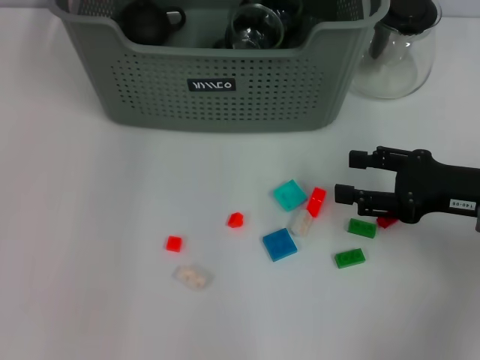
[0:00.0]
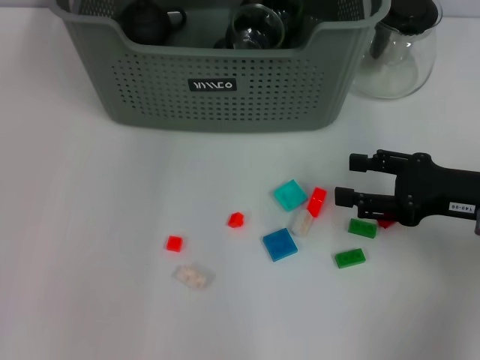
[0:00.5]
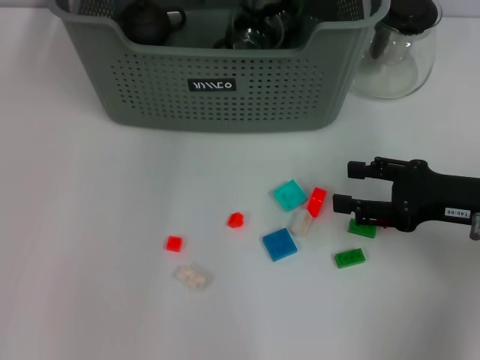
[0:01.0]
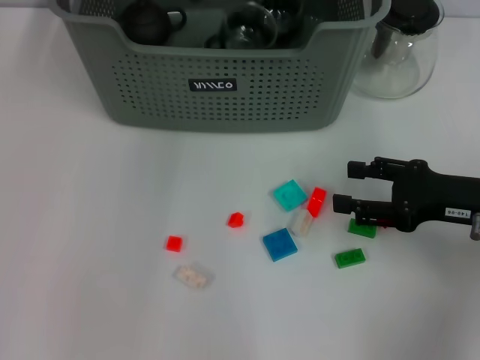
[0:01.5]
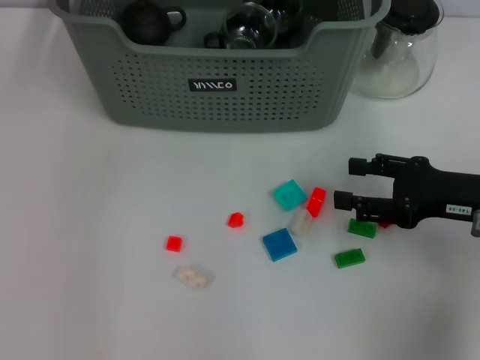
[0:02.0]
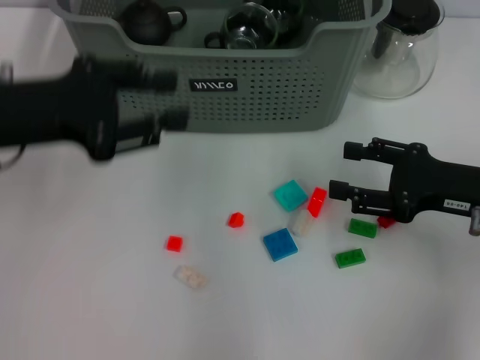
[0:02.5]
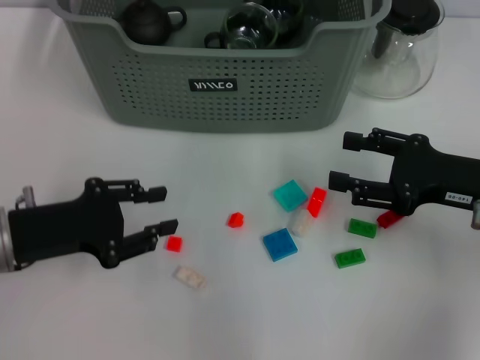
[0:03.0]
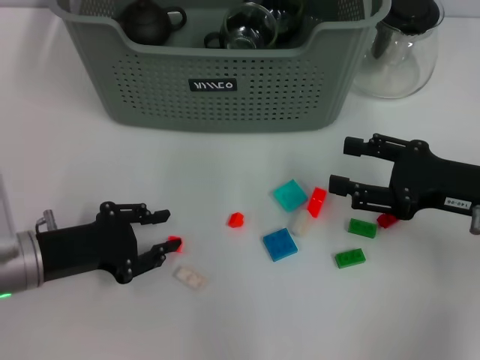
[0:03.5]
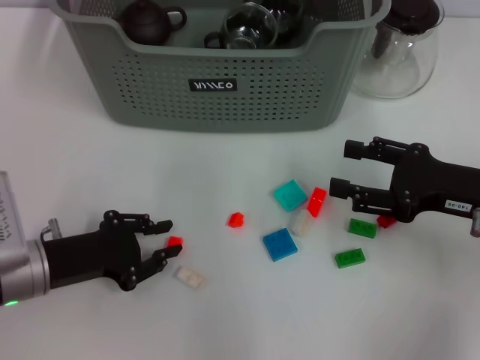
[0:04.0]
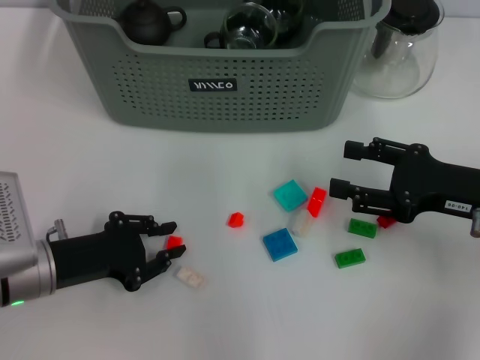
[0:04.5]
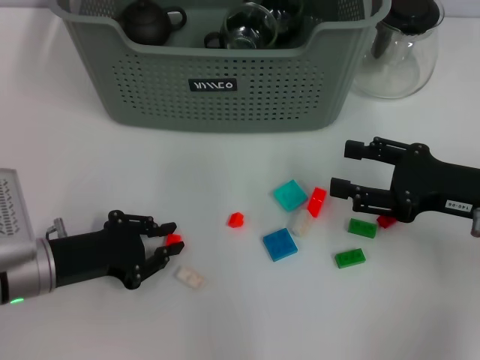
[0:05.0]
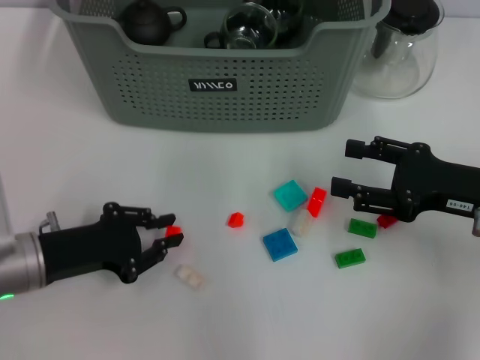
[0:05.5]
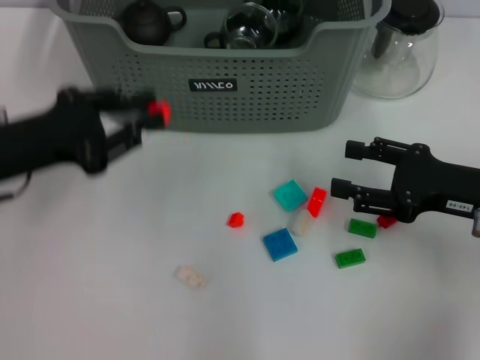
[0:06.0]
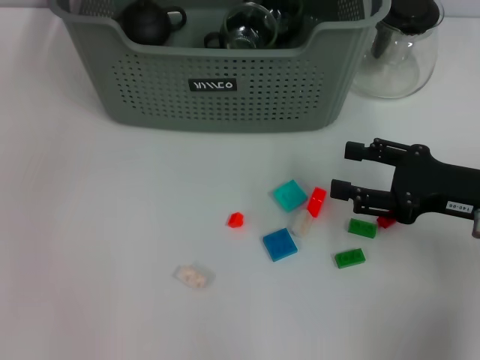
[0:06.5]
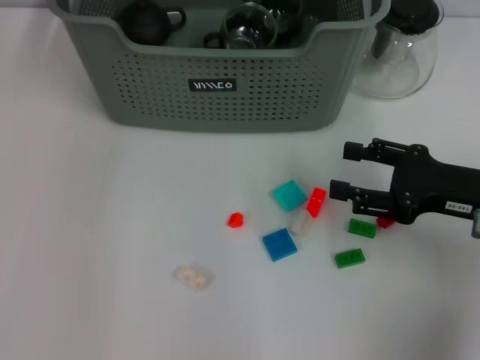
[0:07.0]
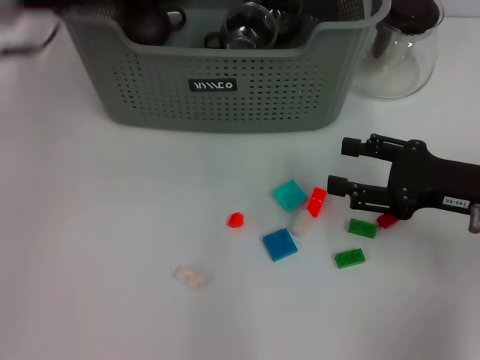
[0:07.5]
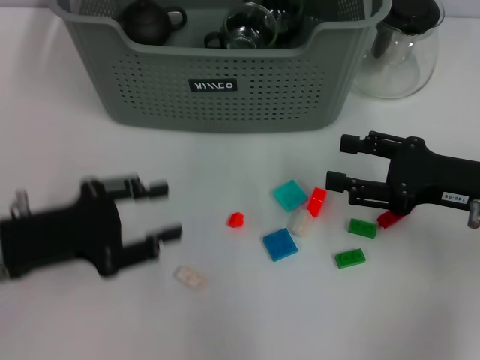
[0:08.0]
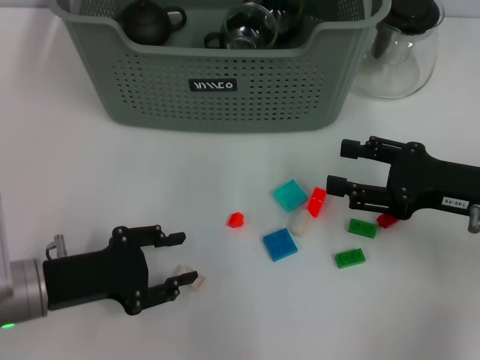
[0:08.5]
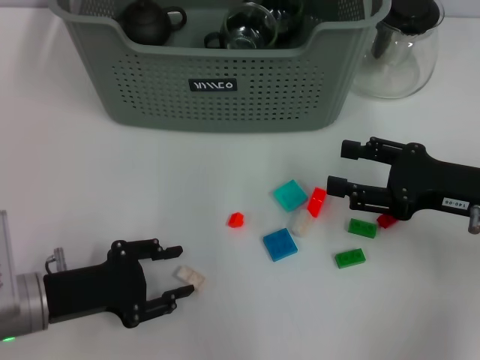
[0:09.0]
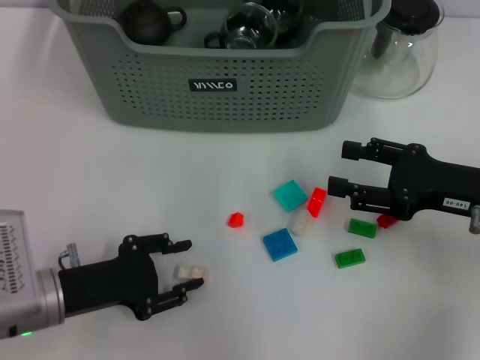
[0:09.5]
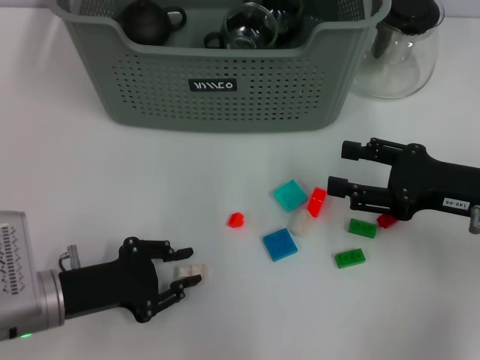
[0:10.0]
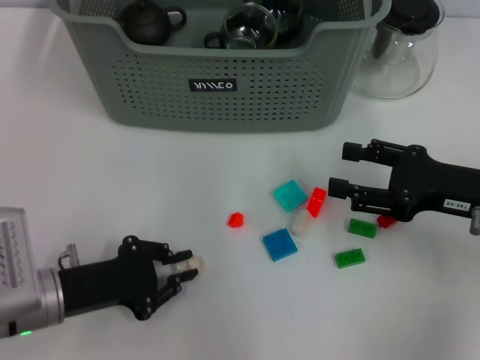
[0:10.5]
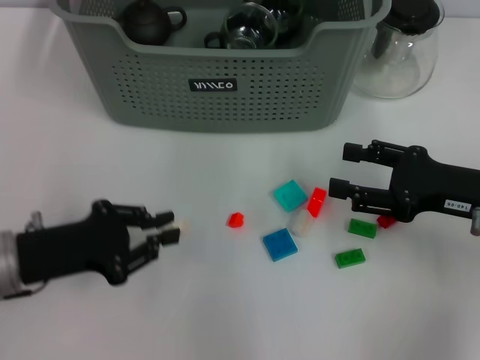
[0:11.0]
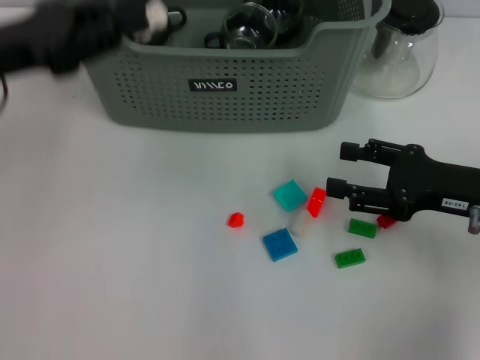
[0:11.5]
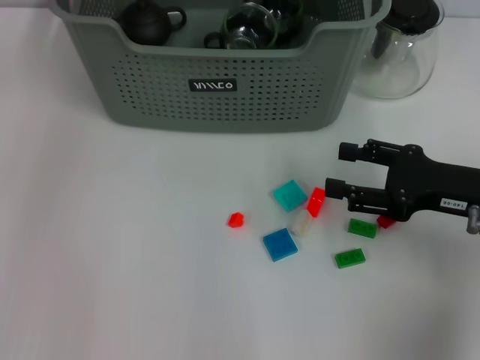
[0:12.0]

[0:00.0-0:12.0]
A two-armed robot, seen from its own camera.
Task of the whole recording: pick up the teacup on the table and place it into the storage bin, pick up the block on the table and place it into the storage bin.
Step, 0:00.0 to 0:01.5: Place the cup in the storage box with left gripper.
Step, 0:02.0 to 0:04.5: Grasp the orange block with left gripper.
Step, 0:05.0 to 0:07.0: Place the orange block in the storage box with left gripper.
Step, 0:07.5 to 0:10.5: Grasp the white block with left gripper.
0:02.0 to 0:04.0: The left gripper moves downward and backward, roughly 35 cm.
0:04.0 to 0:06.0: The left gripper shifts about 10 cm upward.
0:06.0 to 0:08.0: The left gripper travels forward and back again, about 15 cm each way, and opens up.
0:08.0 to 0:10.0: The left gripper shifts roughly 5 cm downward.
0:10.0 to 0:12.0: The left gripper travels upward and forward by roughly 35 cm.

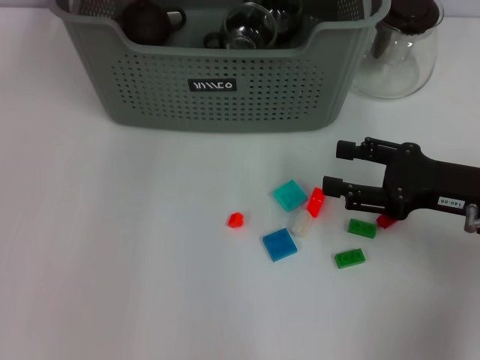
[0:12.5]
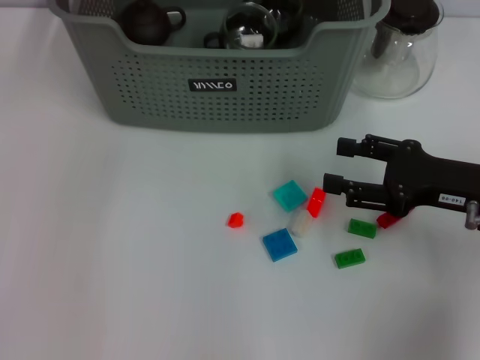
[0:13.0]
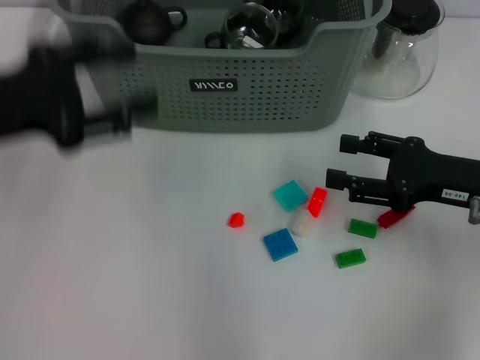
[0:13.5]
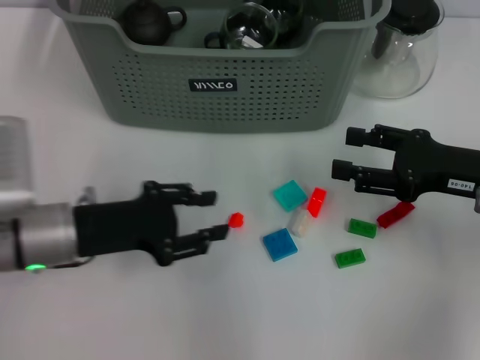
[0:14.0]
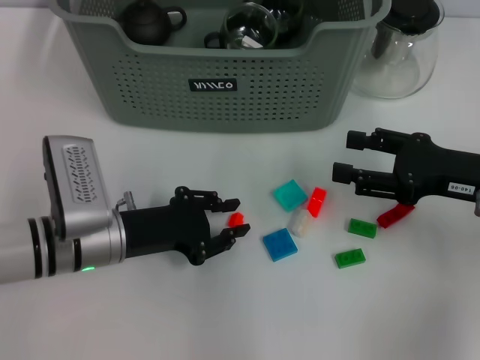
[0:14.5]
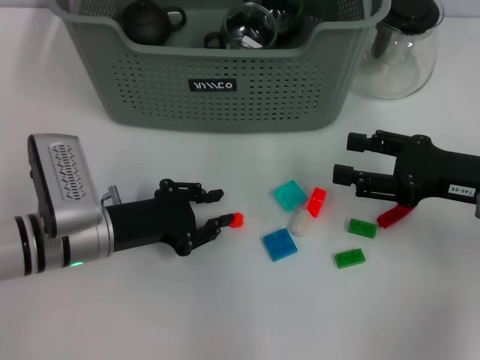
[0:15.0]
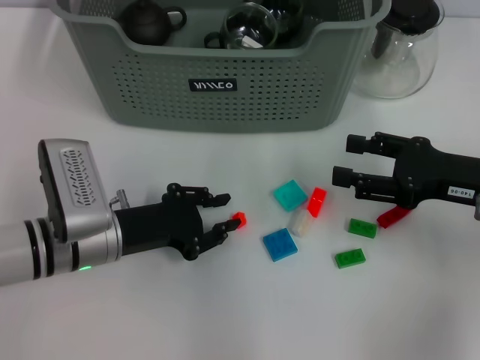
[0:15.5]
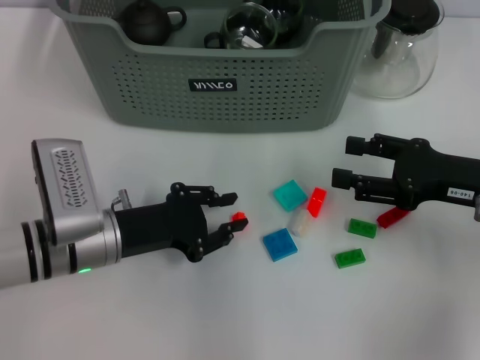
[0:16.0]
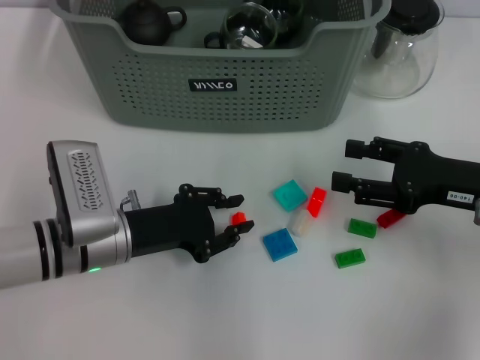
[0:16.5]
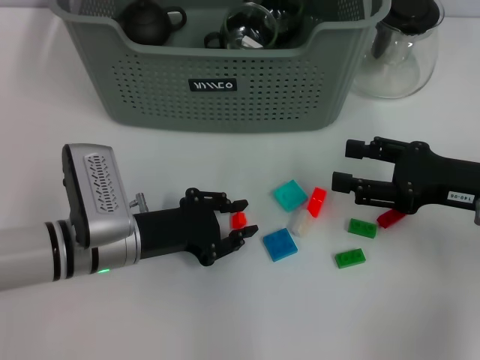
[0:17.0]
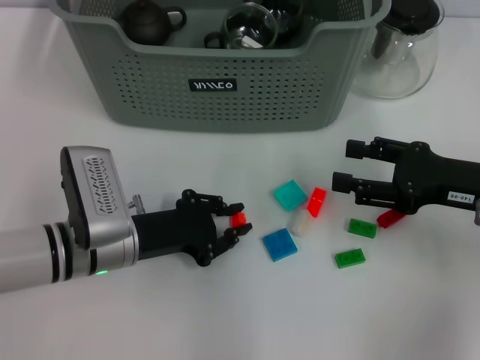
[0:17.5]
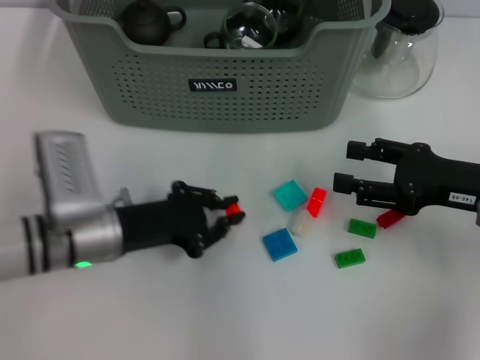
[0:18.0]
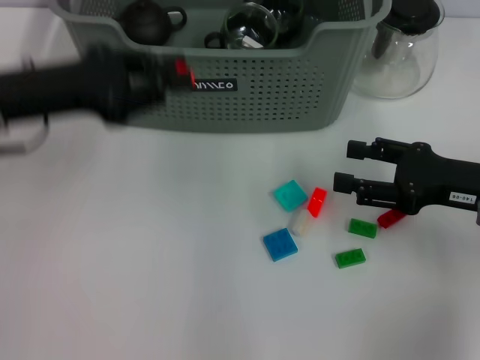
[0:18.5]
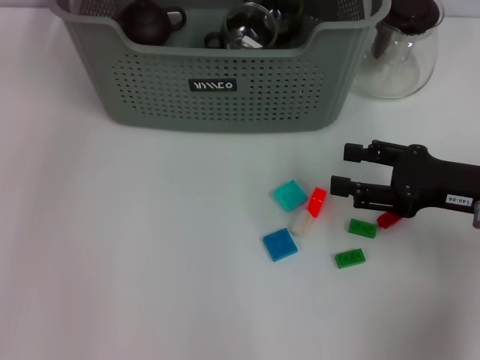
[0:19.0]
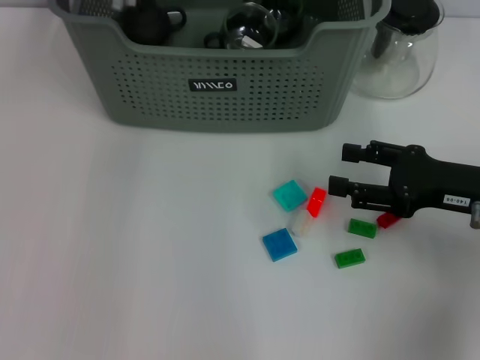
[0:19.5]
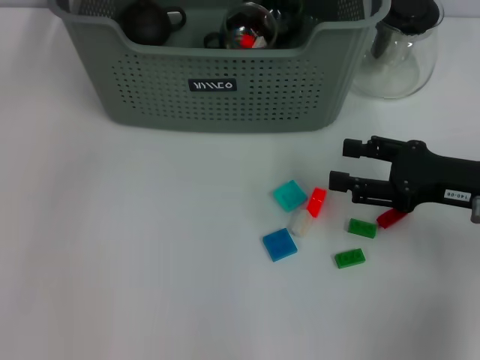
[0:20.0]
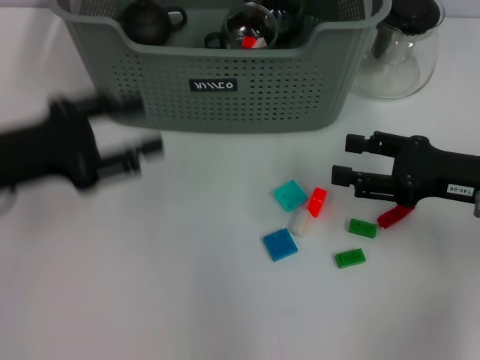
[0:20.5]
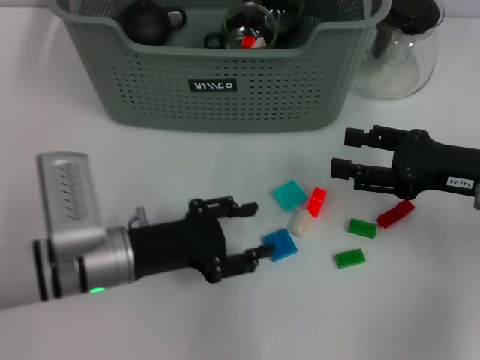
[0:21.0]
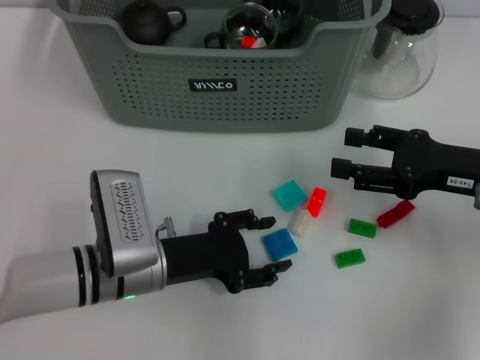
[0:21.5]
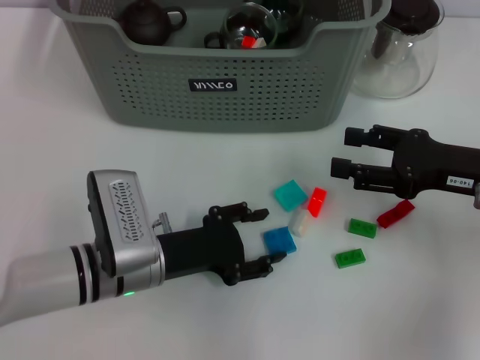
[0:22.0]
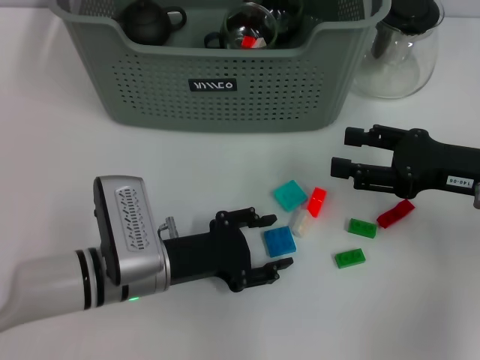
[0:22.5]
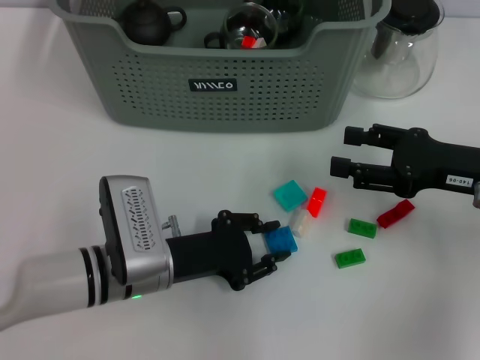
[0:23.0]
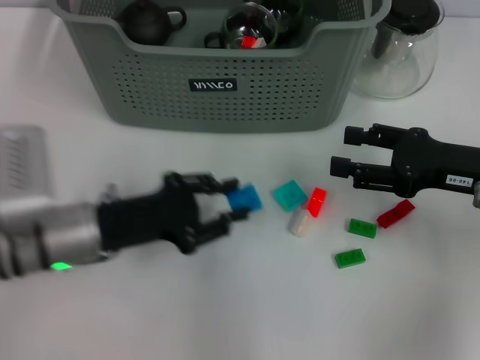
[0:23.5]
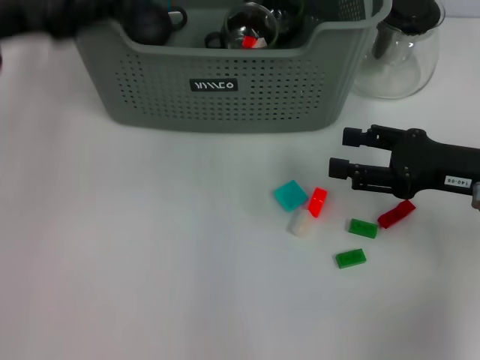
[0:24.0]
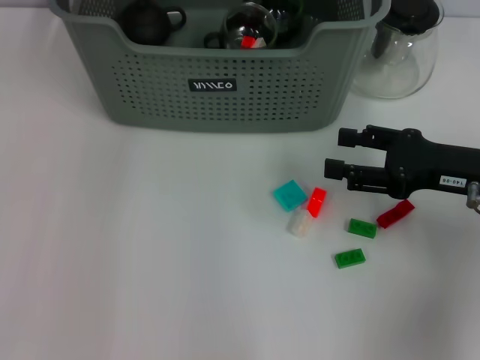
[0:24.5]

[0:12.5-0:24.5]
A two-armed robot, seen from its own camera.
Task of the whole recording: pick up the teacup on the table and place it into the storage bin, pick up the block on the table and place it into the storage bin.
Step, 0:13.5 to 0:17.5: Grasp the orange block with left gripper.
Step, 0:18.0 to 0:20.0: Place the orange block in the storage box with left gripper.
Step, 0:20.5 to 0:23.0: Grasp the dark blue block with left gripper.
0:12.5 to 0:14.5: The left gripper moves downward and backward, roughly 30 cm, and opens, then closes once more.
0:14.5 to 0:16.5: The grippers make only small movements.
0:16.5 to 0:18.5: The left gripper is displaced upward and to the left by some 15 cm.
0:18.5 to 0:20.5: The left gripper moves about 15 cm forward and comes back, and opens its fingers.
0:20.5 to 0:22.5: The left gripper is displaced to the right and downward by approximately 20 cm.
0:22.5 to 0:24.5: The left gripper moves upward and forward, some 35 cm.

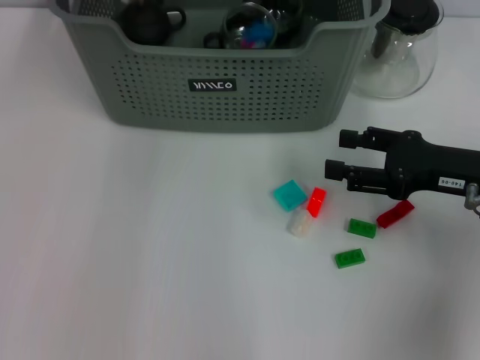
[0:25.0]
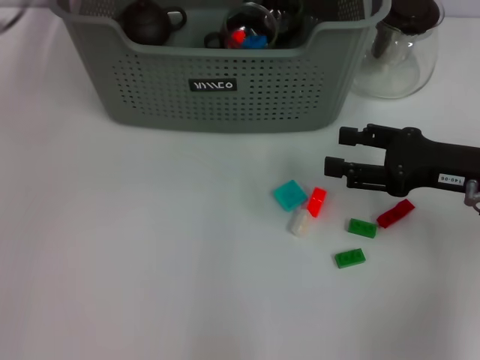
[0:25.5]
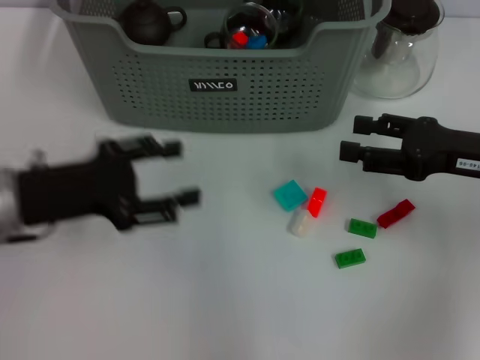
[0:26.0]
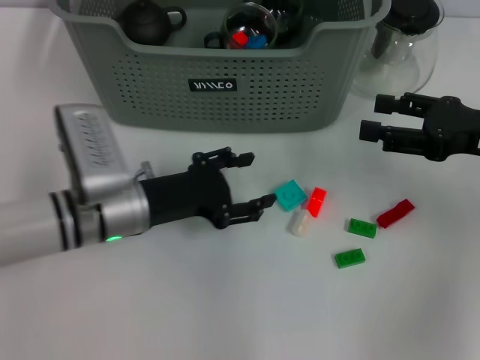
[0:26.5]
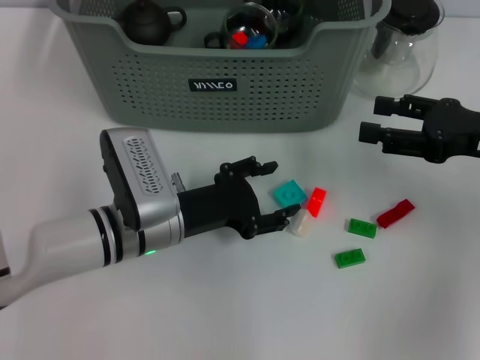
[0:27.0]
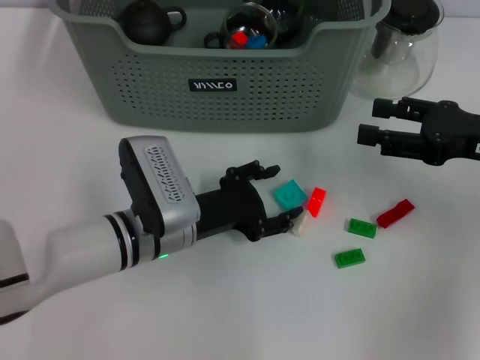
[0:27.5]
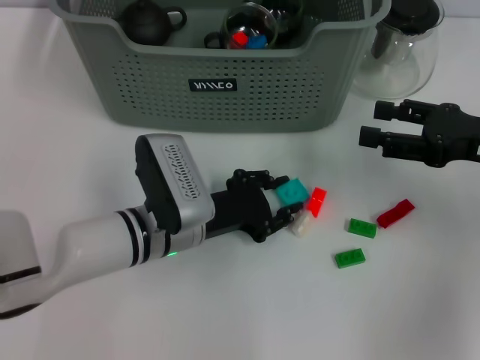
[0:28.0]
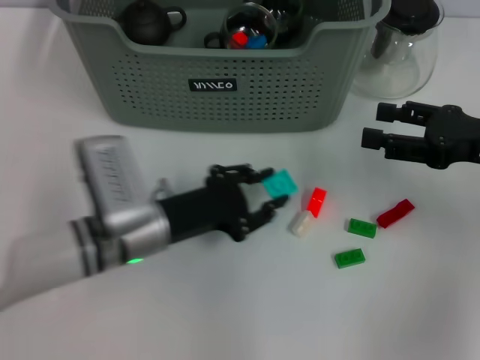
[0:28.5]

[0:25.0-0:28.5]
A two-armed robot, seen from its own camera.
Task of the whole recording: pick up the teacup on the table and place it into the storage bin, pick up the block on the table and place it into the storage bin.
Step, 0:25.5 to 0:28.0: Grasp the light blue block with left gripper.
0:25.0 to 0:27.0: The left gripper heads downward and backward, covering some 25 cm.
0:27.0 to 0:28.5: The left gripper closes its fingers.
